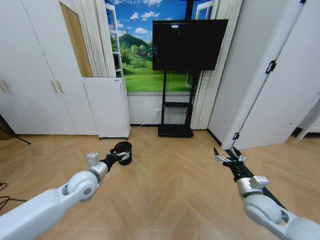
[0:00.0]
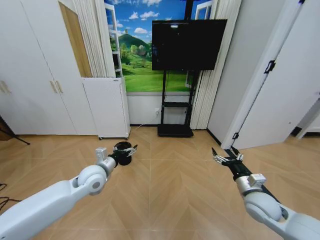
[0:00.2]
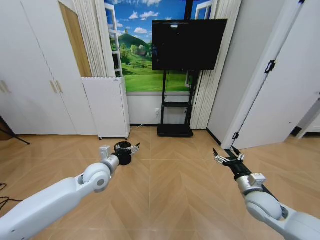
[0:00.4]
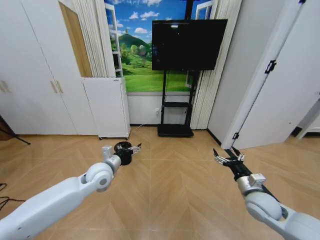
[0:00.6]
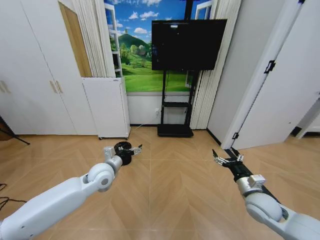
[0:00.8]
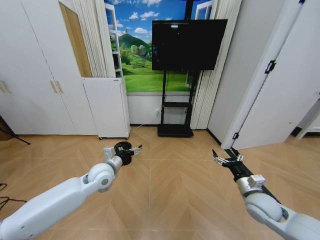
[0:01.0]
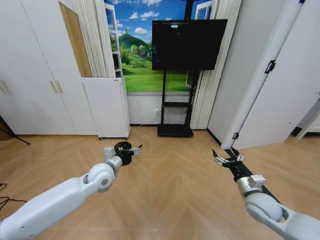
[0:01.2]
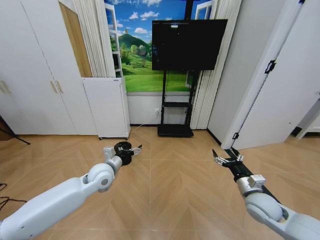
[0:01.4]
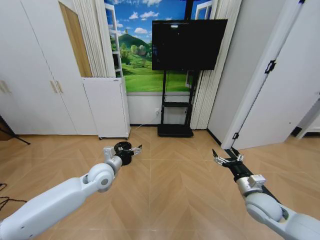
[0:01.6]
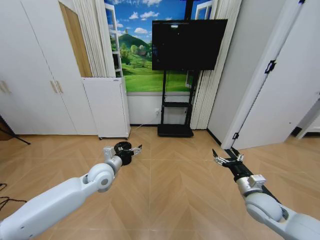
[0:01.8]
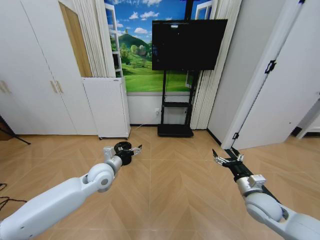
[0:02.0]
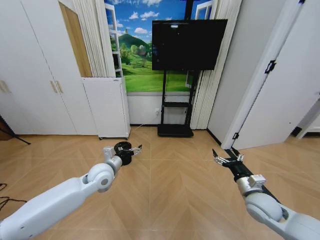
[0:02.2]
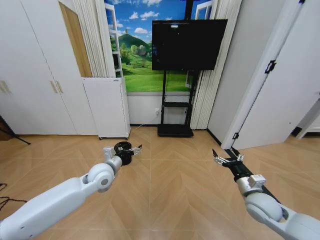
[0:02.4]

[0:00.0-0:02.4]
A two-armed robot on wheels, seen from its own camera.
Task of the whole recording: Pick up the trash bin and place the garbage on the floor into it.
0:00.0 to 0:01.2: The left gripper is displaced to the right by some 5 cm.
0:01.2 to 0:02.4: Neither gripper changes place.

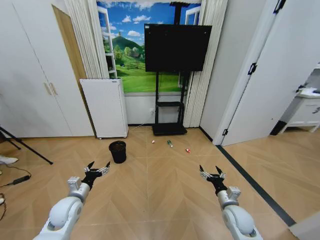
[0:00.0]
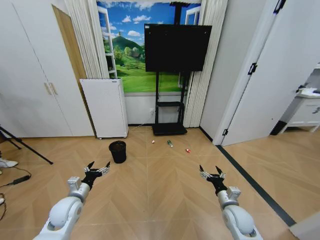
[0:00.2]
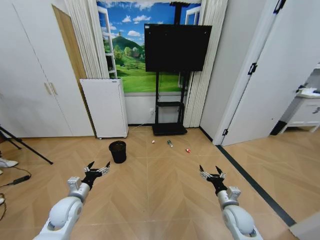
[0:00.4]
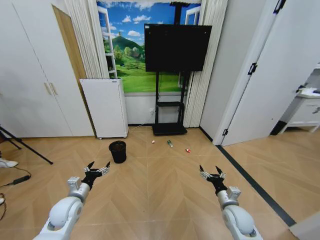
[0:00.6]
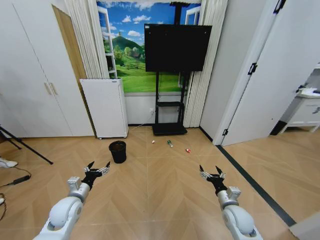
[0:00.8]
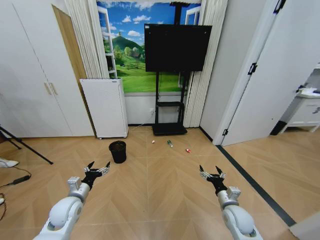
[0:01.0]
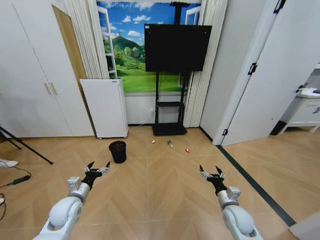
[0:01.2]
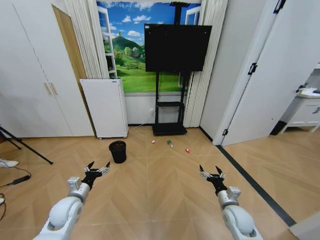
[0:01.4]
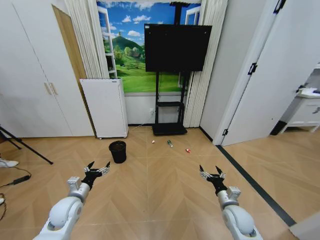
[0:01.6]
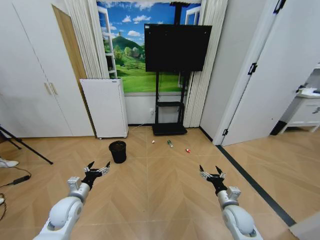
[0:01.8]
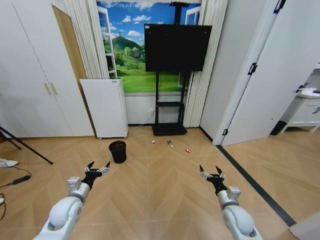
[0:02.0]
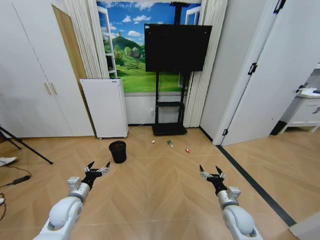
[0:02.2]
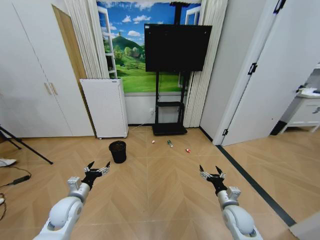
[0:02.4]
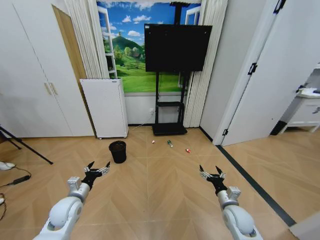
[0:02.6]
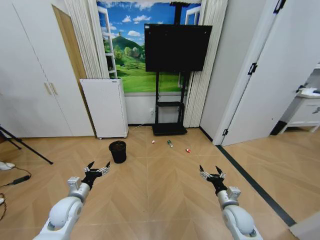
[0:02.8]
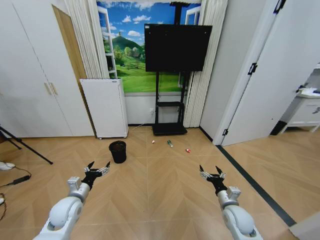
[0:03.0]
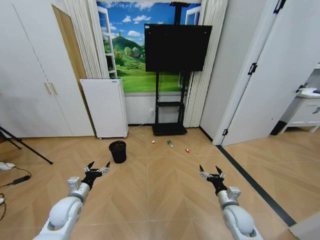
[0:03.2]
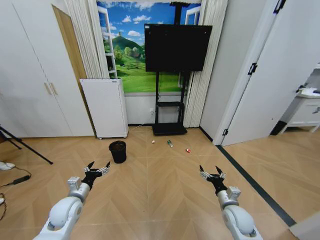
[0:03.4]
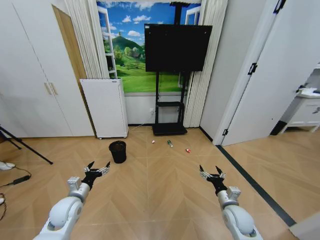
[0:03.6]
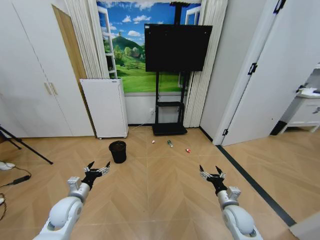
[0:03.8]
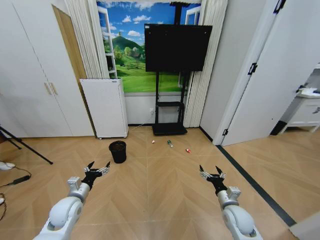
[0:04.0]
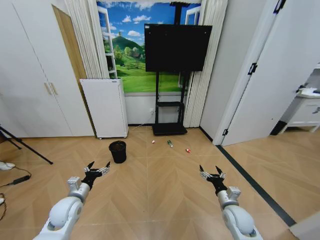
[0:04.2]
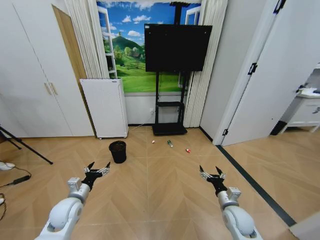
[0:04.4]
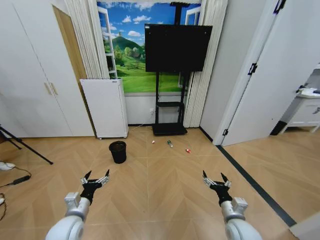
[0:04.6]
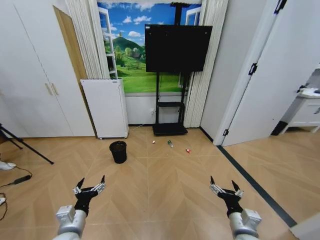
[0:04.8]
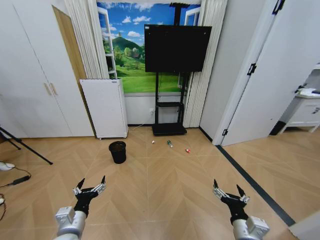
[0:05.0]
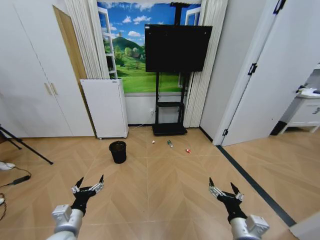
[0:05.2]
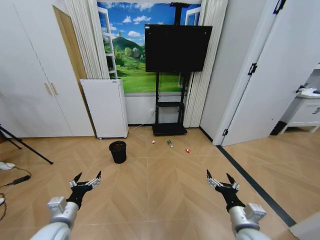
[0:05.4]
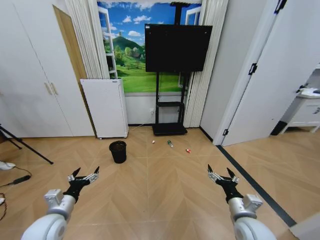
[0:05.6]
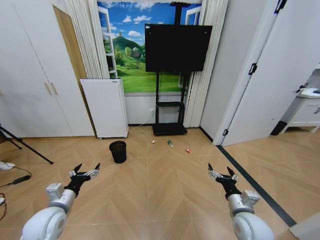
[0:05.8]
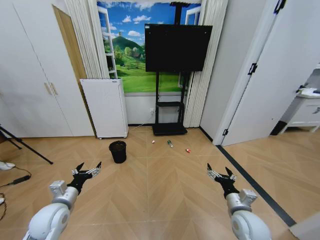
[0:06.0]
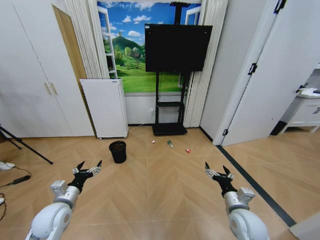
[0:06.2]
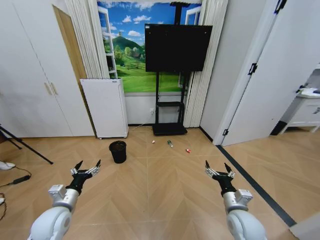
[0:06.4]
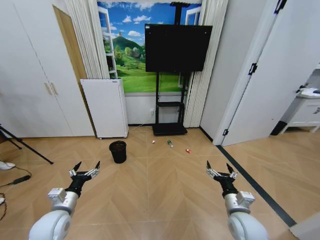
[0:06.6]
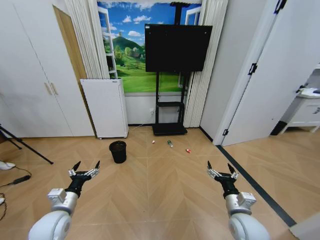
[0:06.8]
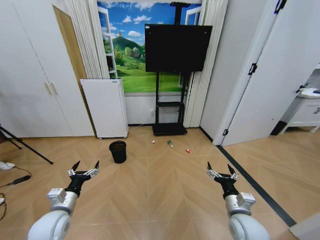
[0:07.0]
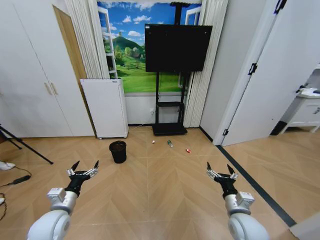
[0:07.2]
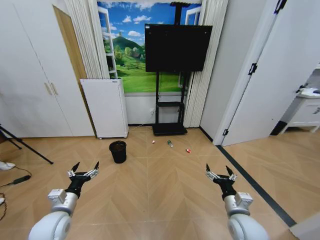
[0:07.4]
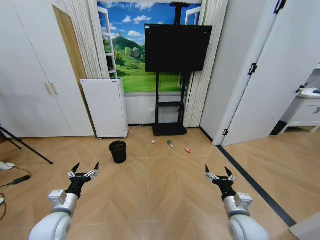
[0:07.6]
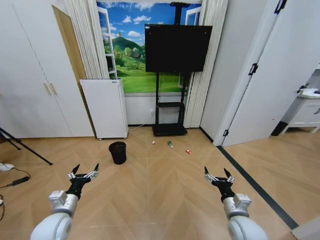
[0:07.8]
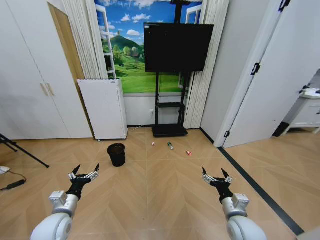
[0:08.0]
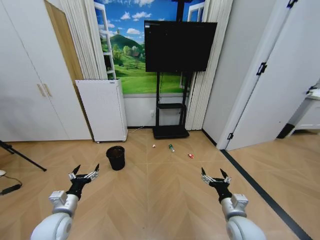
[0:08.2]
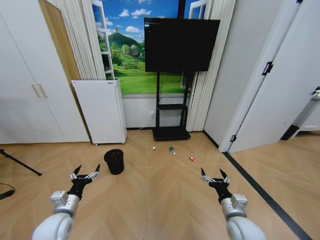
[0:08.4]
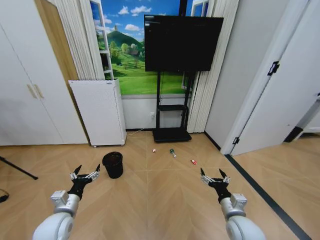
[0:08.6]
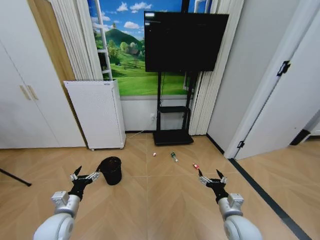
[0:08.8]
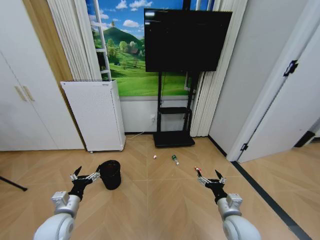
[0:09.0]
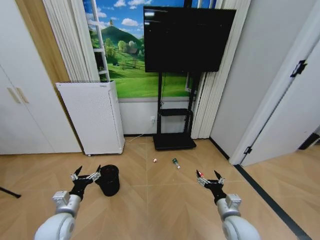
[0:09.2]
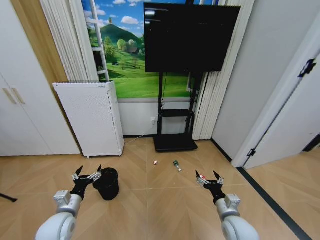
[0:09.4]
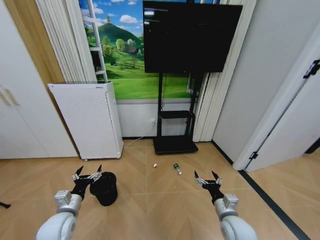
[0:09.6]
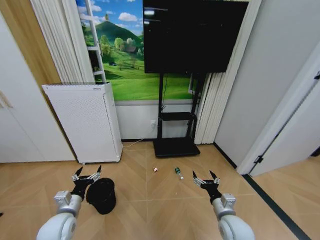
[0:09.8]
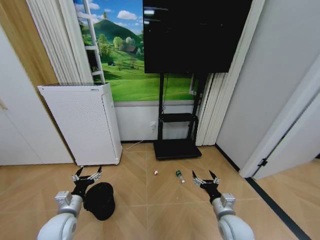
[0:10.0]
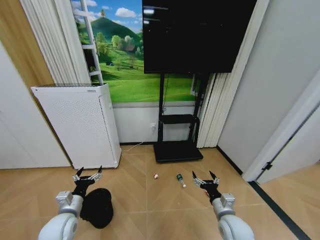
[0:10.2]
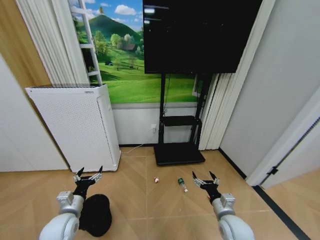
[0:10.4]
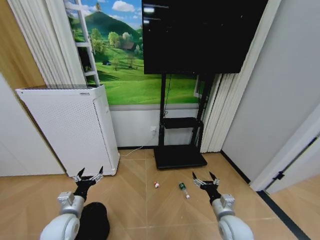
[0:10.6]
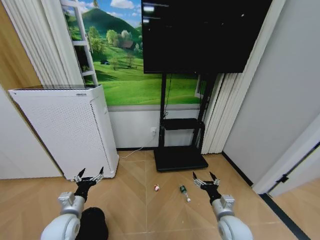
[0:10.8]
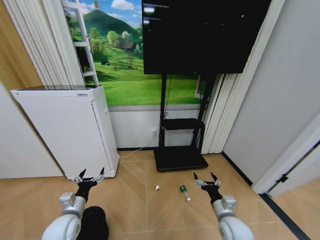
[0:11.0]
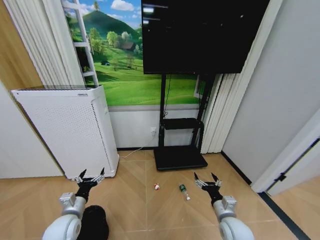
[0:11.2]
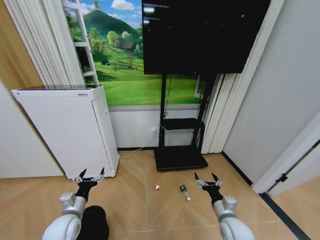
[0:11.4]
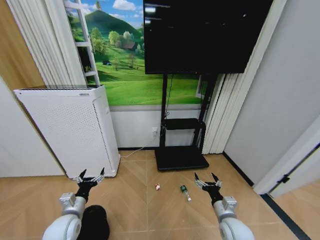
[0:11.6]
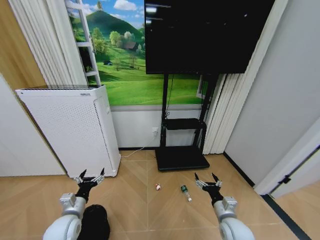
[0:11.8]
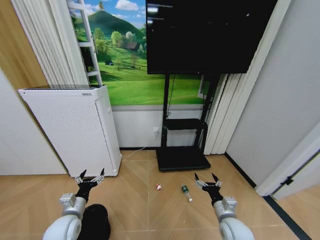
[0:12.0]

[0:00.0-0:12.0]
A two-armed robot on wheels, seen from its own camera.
Task of the whole recording: Pick up the trash bin and place the garbage on the floor into it.
0:01.6 to 0:04.4: The two grippers keep their place.
0:04.4 to 0:06.0: The left gripper moves about 10 cm backward and comes back. The right gripper shifts approximately 5 cm upward, and goes backward and returns, some 15 cm each way.
0:06.0 to 0:07.6: The grippers move only a little.

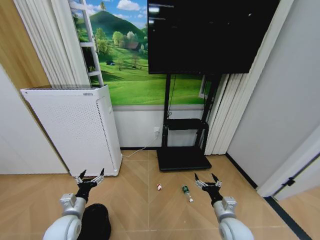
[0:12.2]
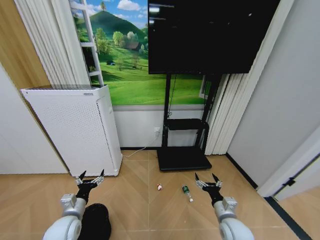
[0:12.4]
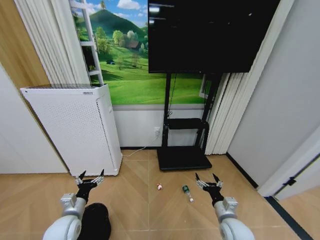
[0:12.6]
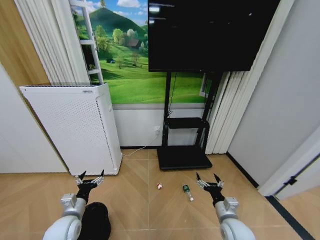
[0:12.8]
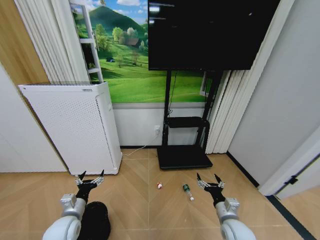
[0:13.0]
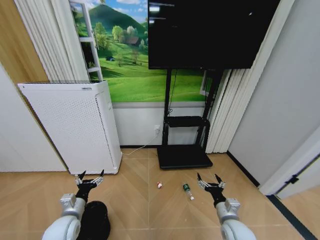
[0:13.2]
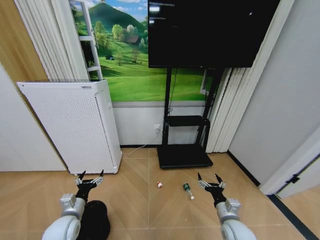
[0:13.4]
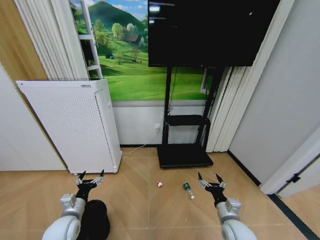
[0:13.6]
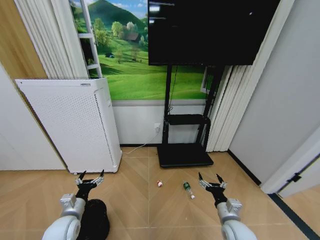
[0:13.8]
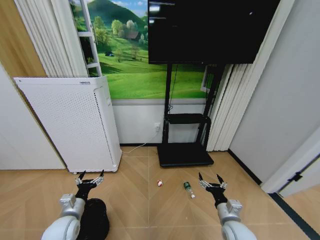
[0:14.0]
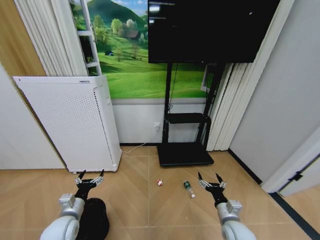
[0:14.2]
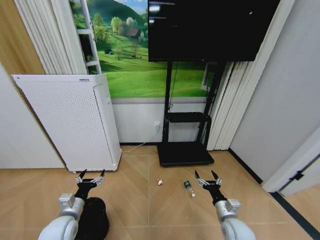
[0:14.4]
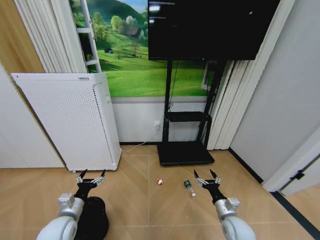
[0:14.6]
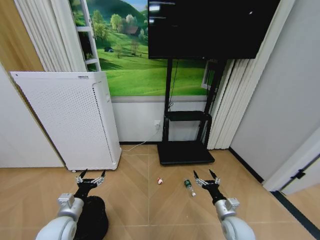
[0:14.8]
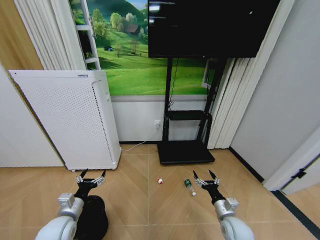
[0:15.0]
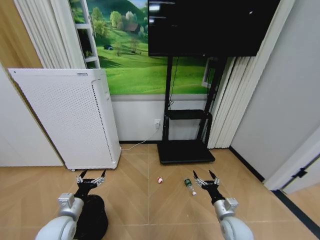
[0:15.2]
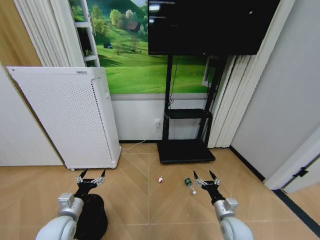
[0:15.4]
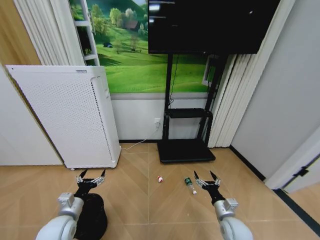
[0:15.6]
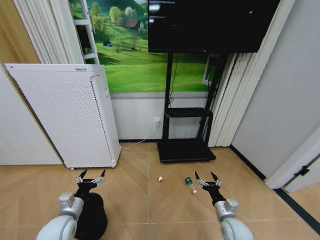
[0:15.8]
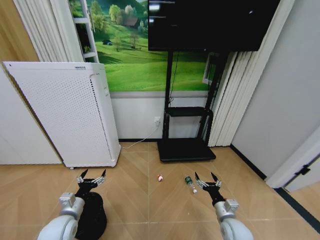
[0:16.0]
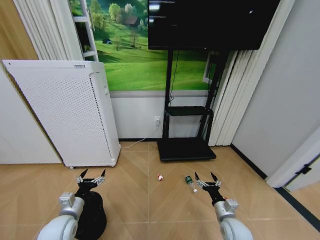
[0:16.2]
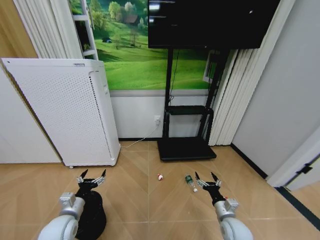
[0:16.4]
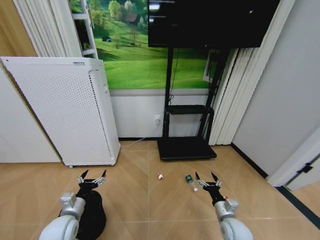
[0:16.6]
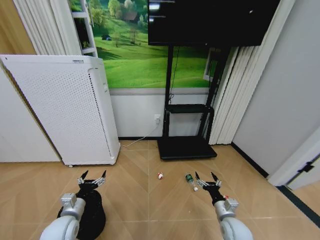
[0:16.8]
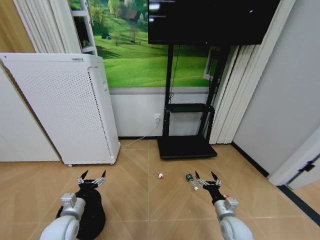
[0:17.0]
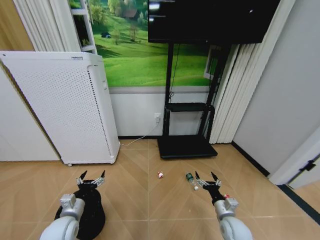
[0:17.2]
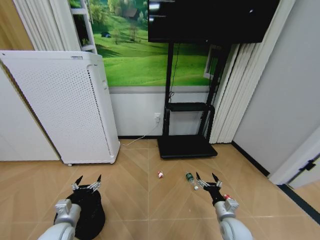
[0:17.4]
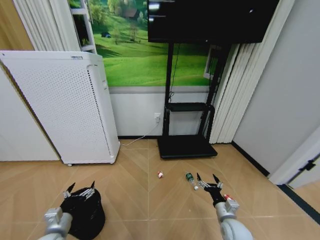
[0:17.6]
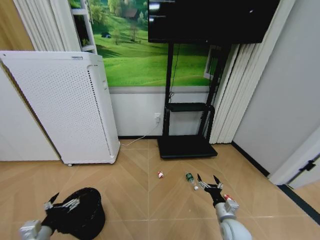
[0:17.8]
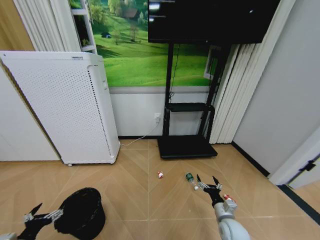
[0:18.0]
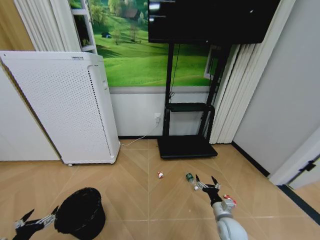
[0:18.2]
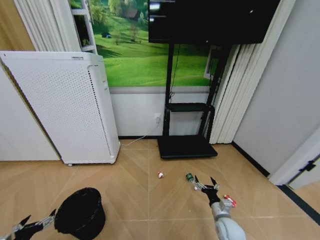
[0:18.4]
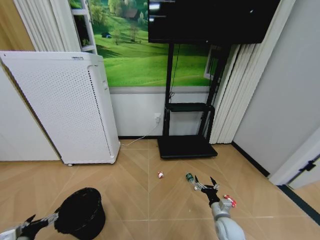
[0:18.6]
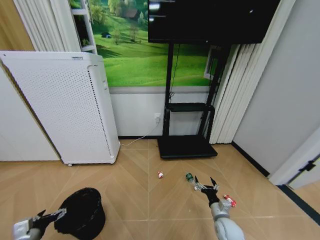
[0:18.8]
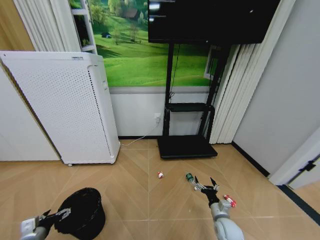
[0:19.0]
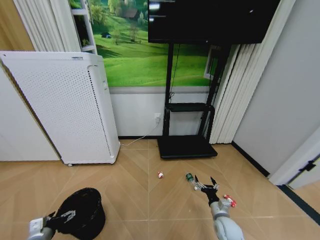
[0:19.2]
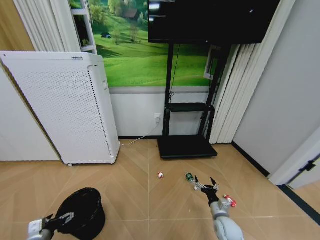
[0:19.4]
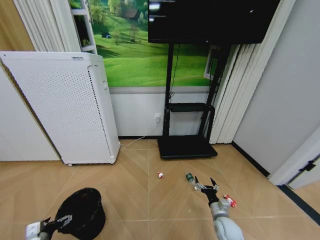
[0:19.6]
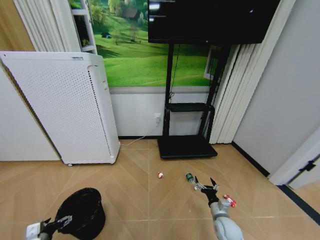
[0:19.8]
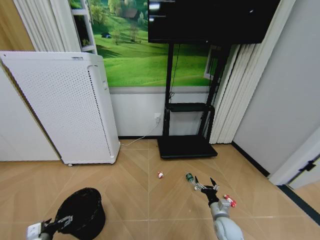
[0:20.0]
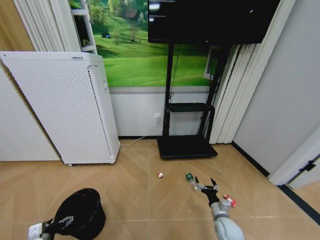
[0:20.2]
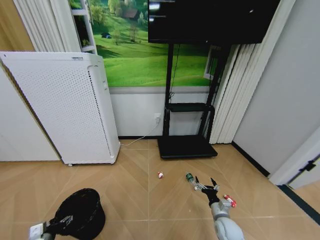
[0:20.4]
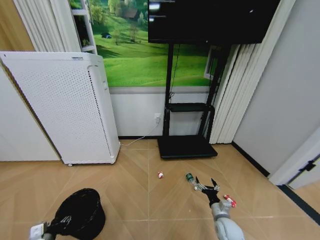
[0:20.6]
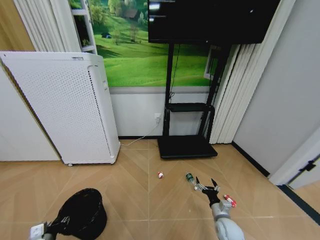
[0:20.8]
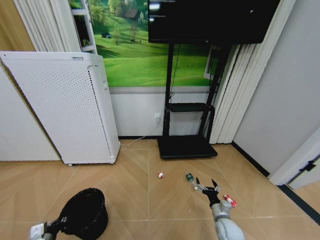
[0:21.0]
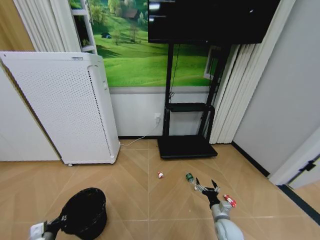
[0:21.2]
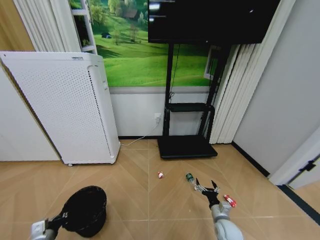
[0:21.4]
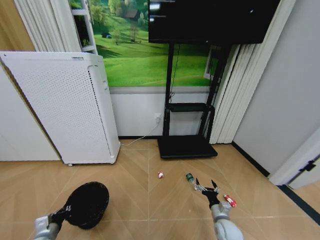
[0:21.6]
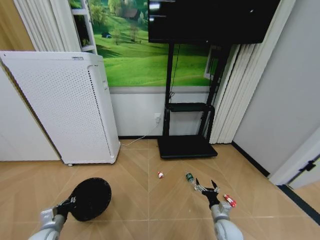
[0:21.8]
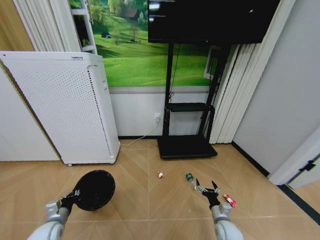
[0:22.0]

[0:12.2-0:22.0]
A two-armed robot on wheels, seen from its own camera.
Task of the whole recording: Pick up the trash bin and place the garbage on the floor into it.
0:12.2 to 0:13.6: Neither gripper changes place.
0:13.6 to 0:15.0: The grippers move only a little.
0:15.0 to 0:16.4: Neither gripper changes place.
0:16.4 to 0:17.8: The left gripper moves backward and to the left, about 10 cm.
0:17.8 to 0:19.2: The left gripper moves about 5 cm.
0:19.2 to 0:20.6: There are only small adjustments of the grippers.
0:20.6 to 0:22.0: The left gripper moves forward, approximately 5 cm, and closes.
